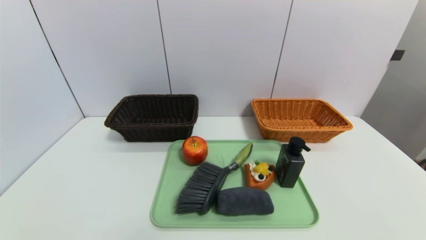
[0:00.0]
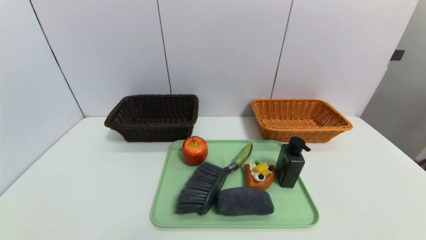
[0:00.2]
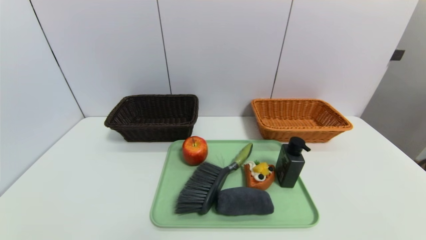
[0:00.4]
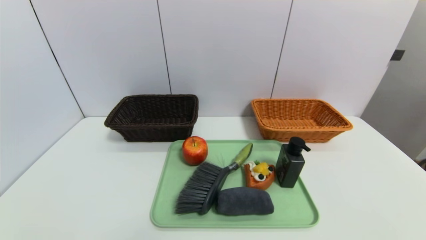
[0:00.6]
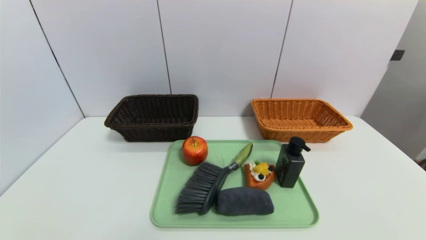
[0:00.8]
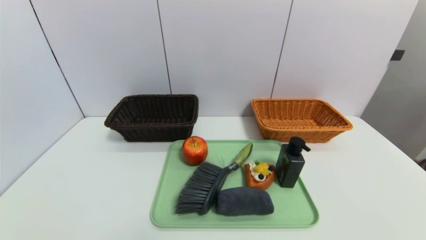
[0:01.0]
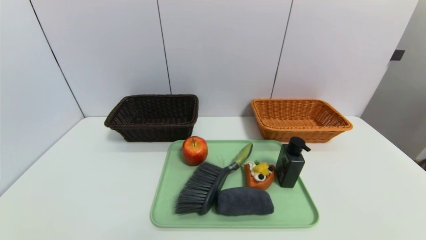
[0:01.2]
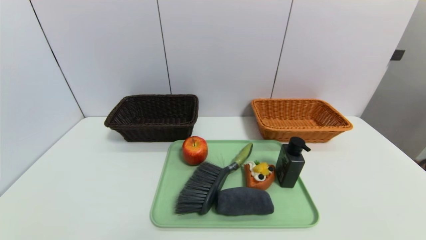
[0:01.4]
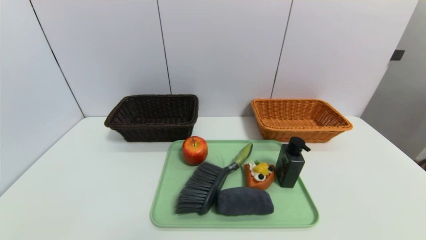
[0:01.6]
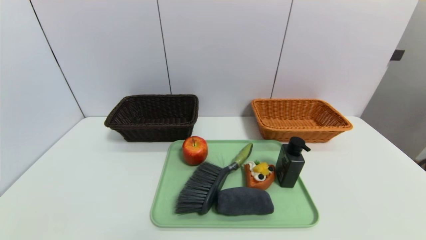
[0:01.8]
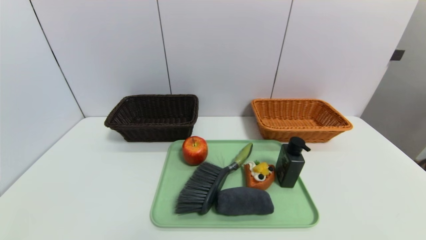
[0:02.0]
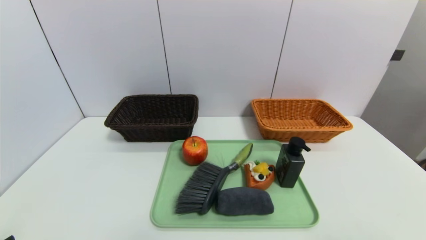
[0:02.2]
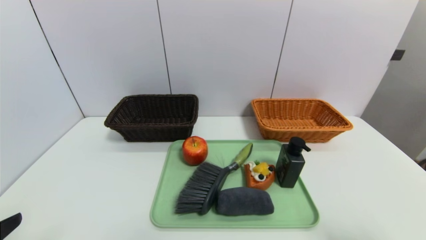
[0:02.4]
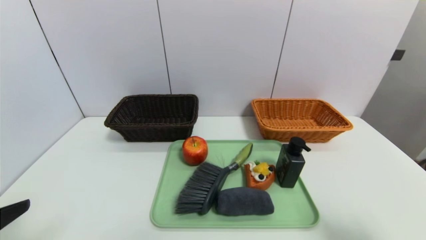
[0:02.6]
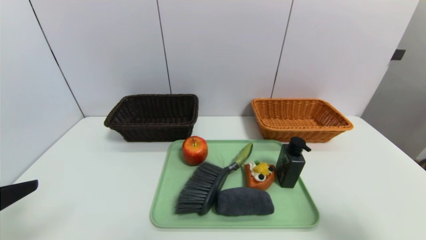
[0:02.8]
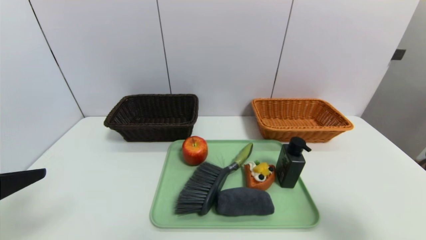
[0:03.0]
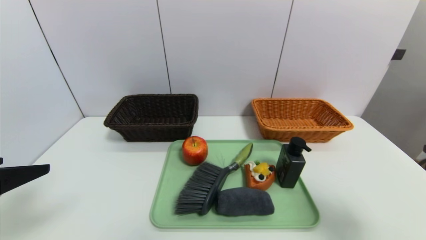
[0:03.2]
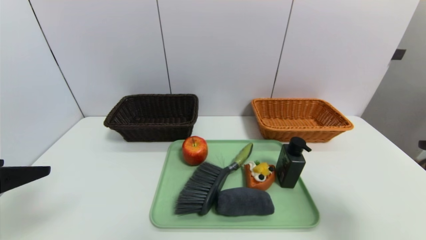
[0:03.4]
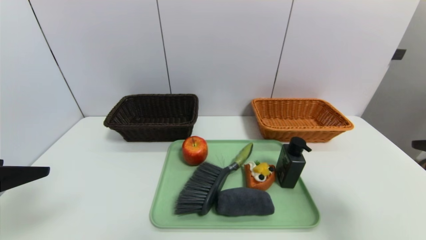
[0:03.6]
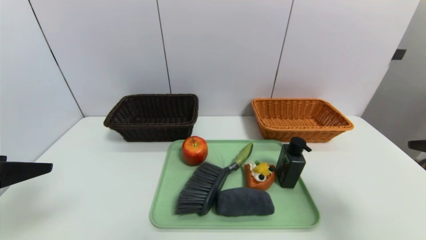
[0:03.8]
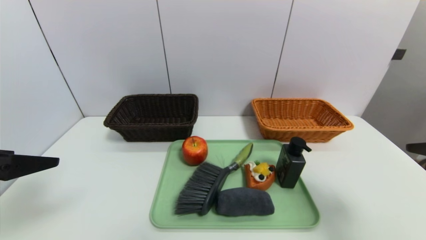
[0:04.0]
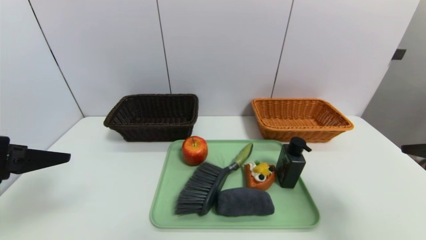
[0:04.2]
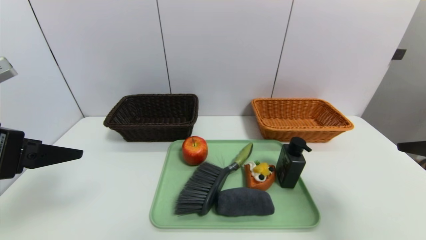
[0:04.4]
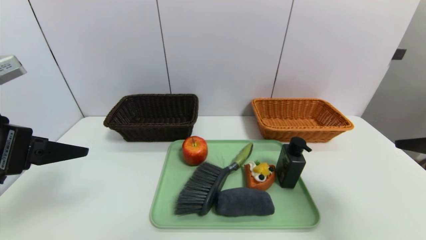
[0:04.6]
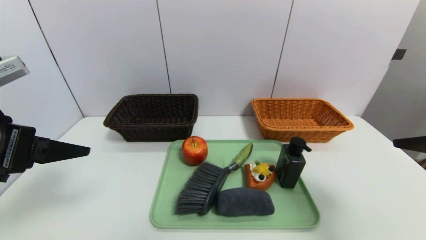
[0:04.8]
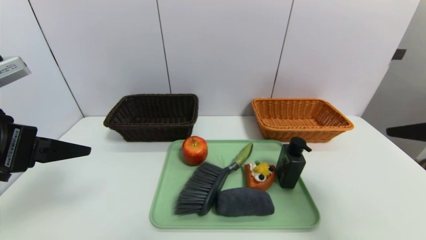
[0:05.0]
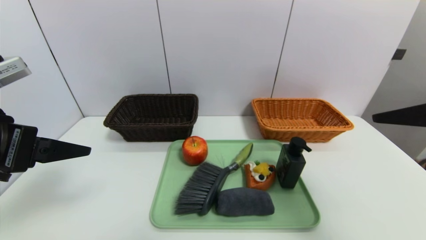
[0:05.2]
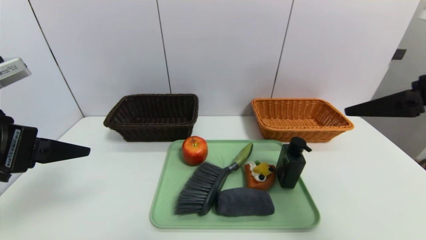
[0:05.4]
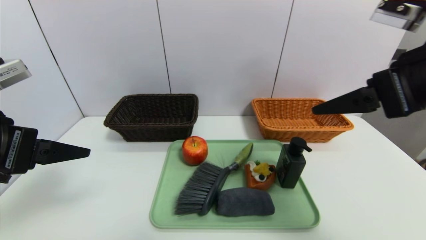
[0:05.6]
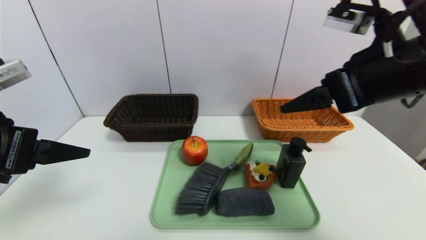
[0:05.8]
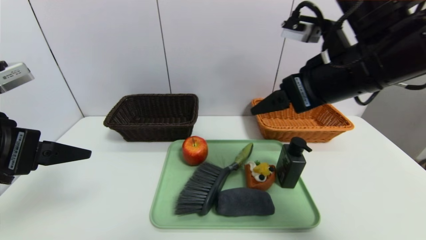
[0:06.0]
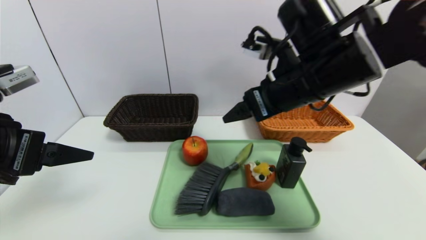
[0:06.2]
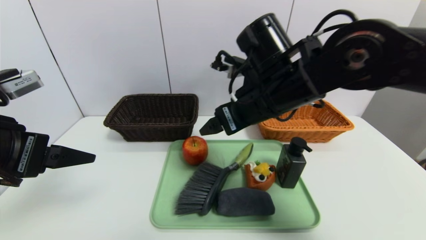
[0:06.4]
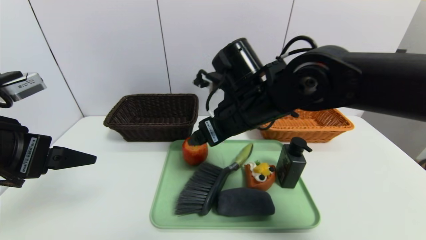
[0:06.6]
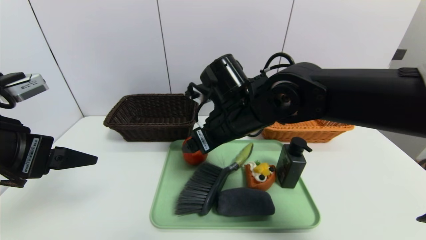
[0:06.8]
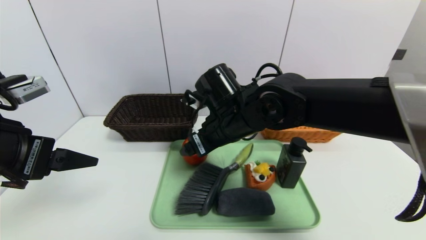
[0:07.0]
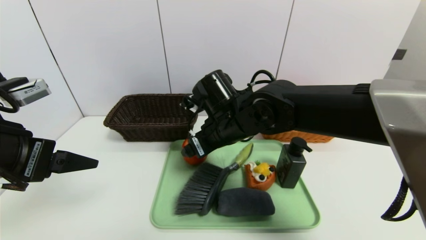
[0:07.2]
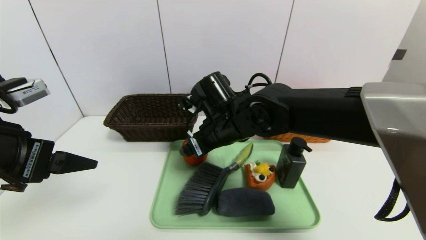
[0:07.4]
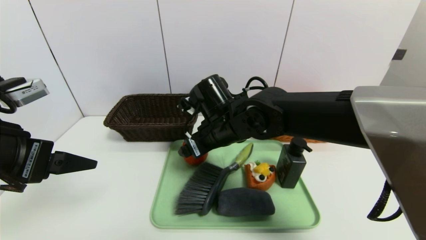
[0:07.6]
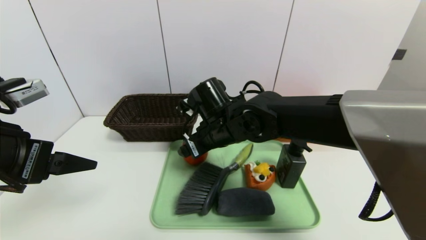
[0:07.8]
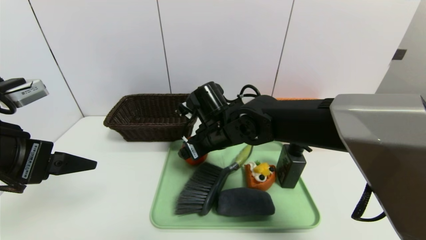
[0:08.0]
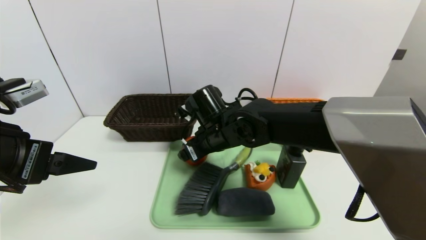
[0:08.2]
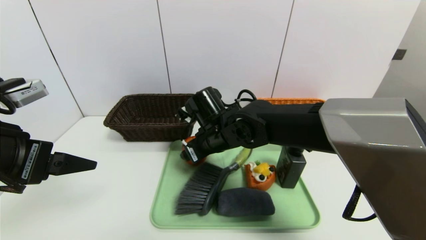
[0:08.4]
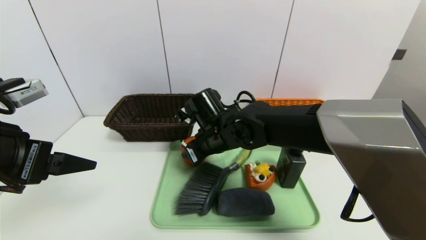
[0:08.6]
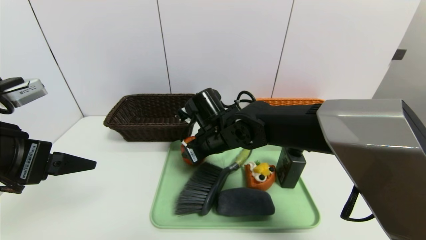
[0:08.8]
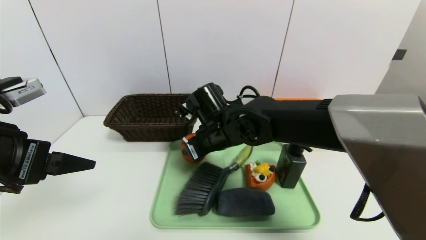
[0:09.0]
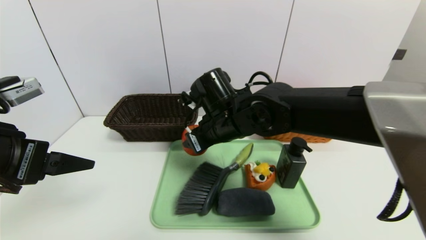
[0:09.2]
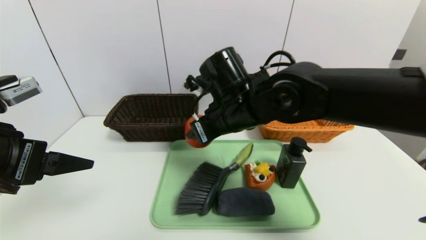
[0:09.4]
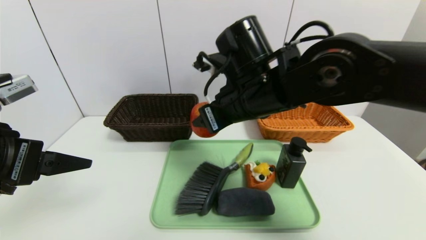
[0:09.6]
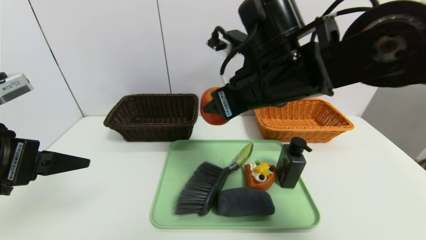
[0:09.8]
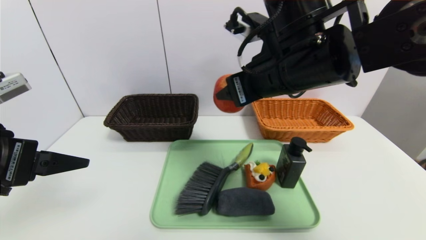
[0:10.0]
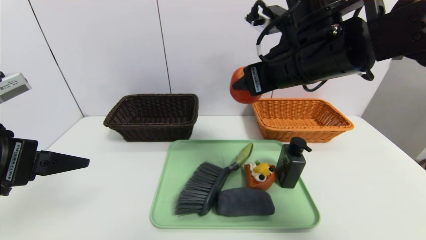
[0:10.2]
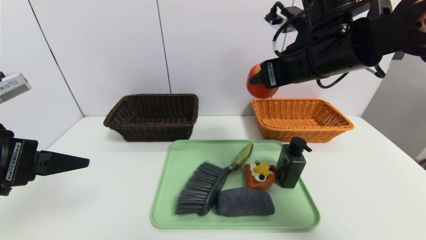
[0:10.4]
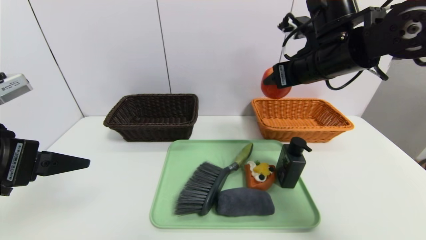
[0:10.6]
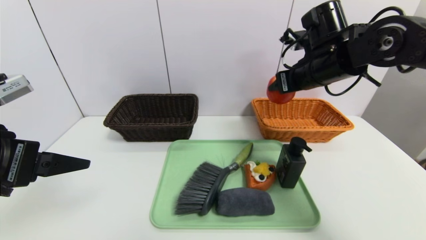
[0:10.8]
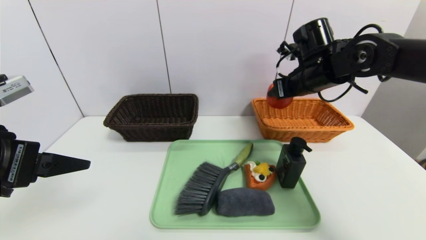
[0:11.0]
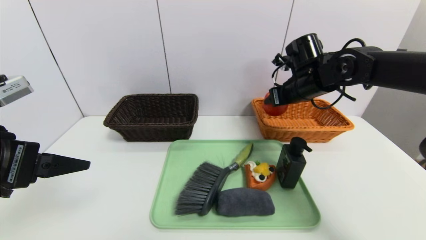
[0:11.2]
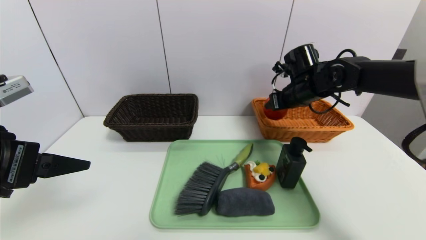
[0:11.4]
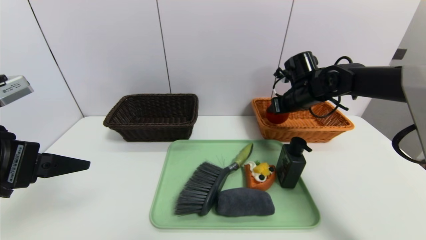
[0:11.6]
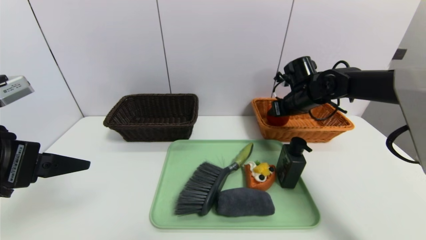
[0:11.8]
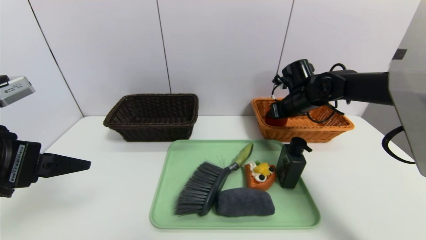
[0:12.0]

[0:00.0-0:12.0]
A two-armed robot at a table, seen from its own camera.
Task of the whole recording: place the food in the right basket with the right gripper, and place the non food items in the left basket with the left gripper.
0:01.6 to 0:03.0: The two grippers go roughly 20 cm upward and forward.
0:03.0 to 0:04.4: The right gripper changes place by roughly 5 cm, while the left gripper moves forward, about 5 cm.
0:04.4 to 0:06.0: The right gripper travels to the left and forward by some 20 cm.
0:06.0 to 0:07.6: The right gripper heads to the left, downward and forward, covering some 20 cm.
0:07.6 to 0:09.0: The right gripper closes its fingers.
0:09.0 to 0:10.4: The right gripper moves upward and to the right, approximately 20 cm.
0:10.4 to 0:12.0: The right gripper travels forward, downward and to the right by approximately 20 cm.

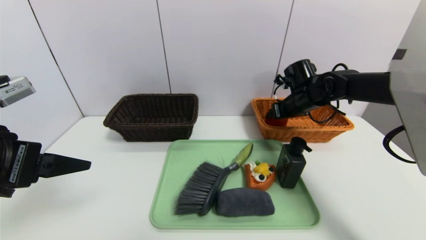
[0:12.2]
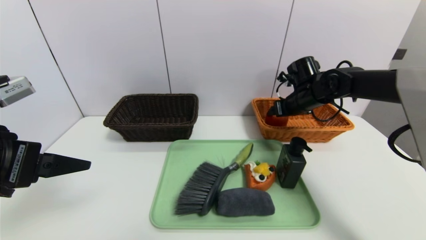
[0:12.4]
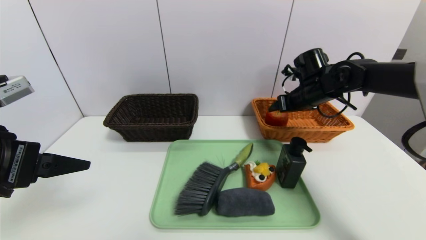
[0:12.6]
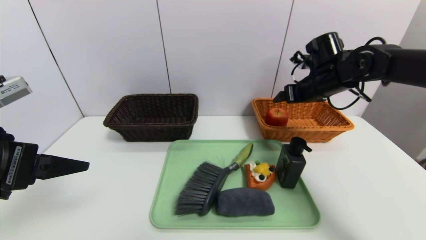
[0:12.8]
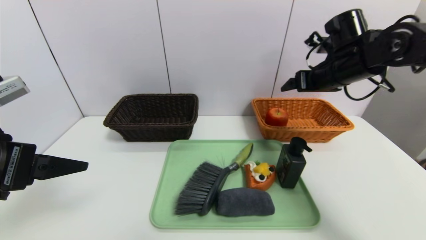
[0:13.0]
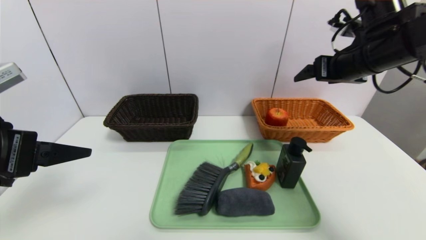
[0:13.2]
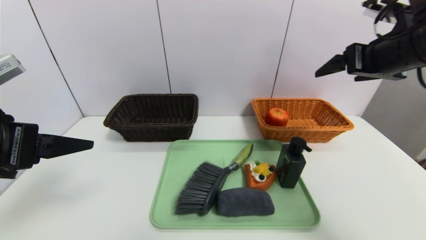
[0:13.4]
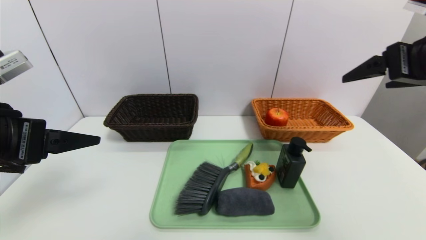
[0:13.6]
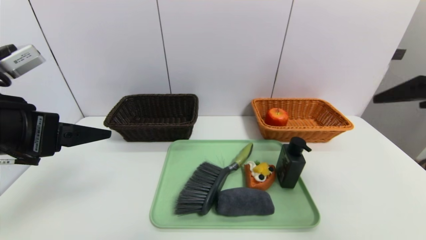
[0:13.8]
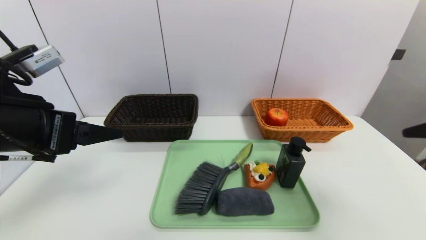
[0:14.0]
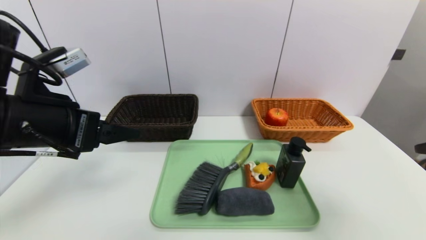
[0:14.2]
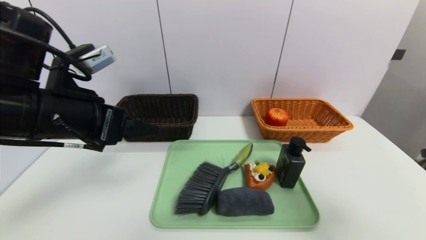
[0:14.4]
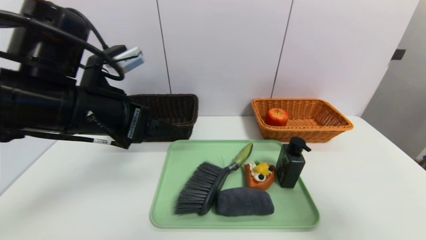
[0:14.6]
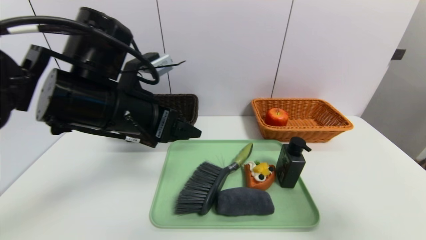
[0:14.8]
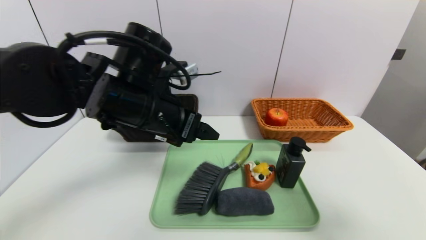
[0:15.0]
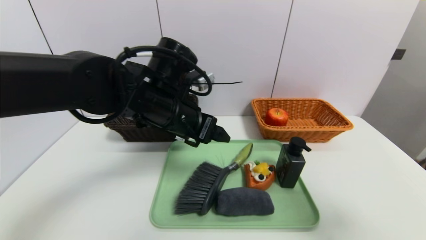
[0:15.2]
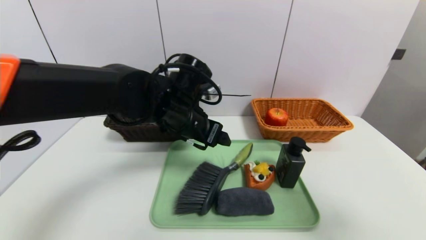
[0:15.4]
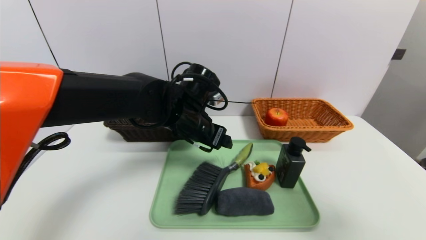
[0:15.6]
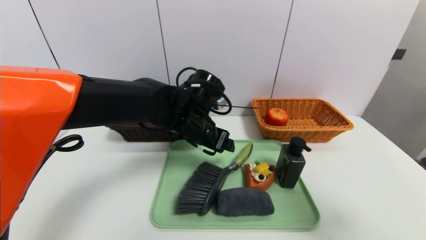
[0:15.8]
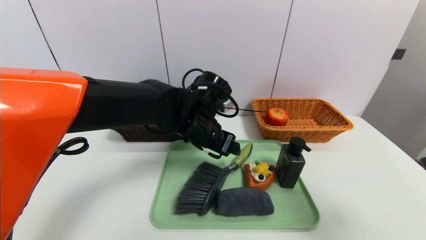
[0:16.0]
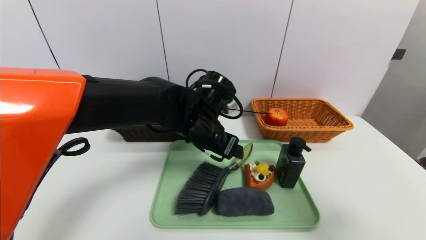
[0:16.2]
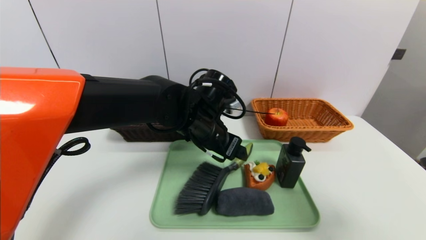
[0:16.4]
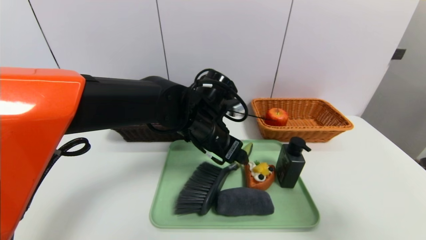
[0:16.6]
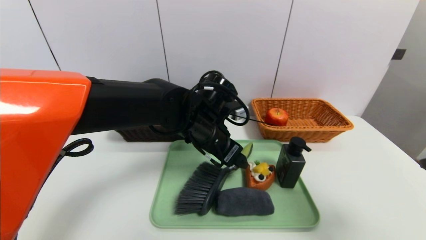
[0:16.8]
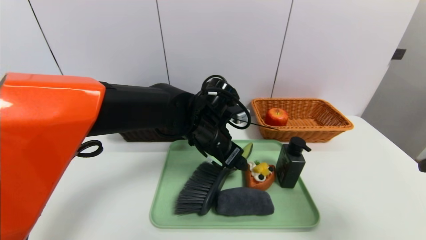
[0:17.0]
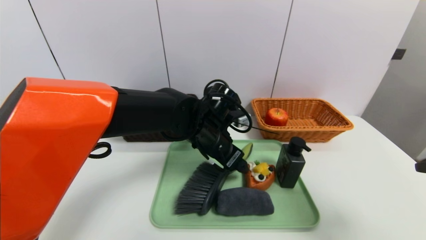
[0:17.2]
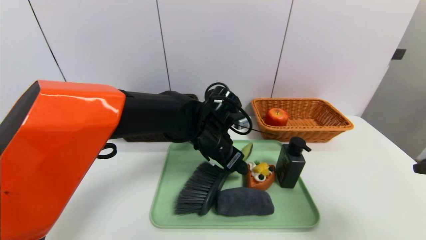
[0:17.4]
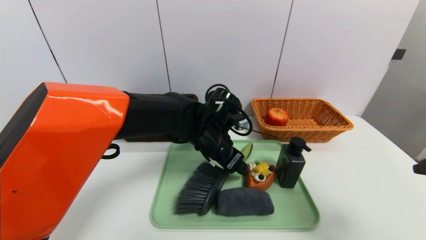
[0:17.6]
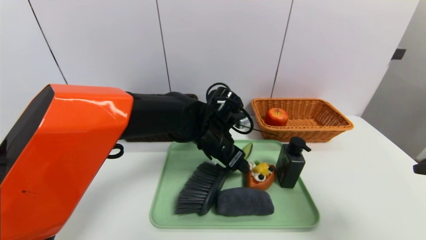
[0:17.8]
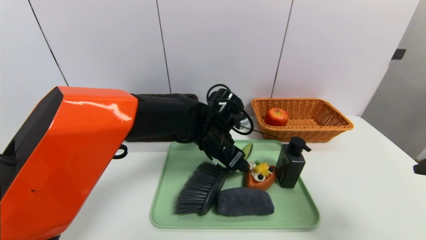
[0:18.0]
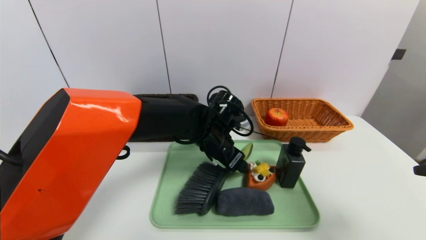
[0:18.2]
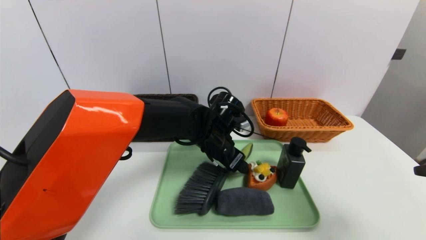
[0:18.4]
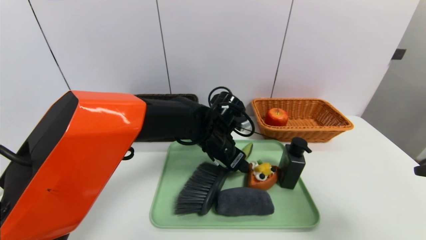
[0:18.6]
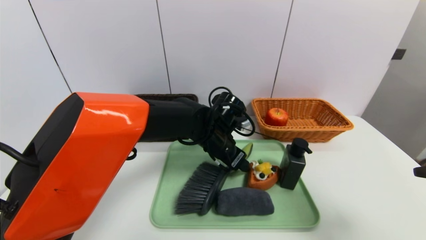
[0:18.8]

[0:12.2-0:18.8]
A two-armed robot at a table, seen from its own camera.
Task of the whole recording: place the food in the right basket with the right gripper, and place the non food items in the left basket with the left gripper.
0:12.2 to 0:13.8: The right gripper heads backward and upward, covering about 35 cm, and opens up.
0:13.8 to 0:15.4: The right gripper is displaced backward by roughly 10 cm. Meanwhile the left gripper moves to the right and forward, some 25 cm.
0:15.4 to 0:17.2: The left gripper heads to the right and downward, covering approximately 5 cm.
0:17.2 to 0:18.8: The grippers move only a little.
